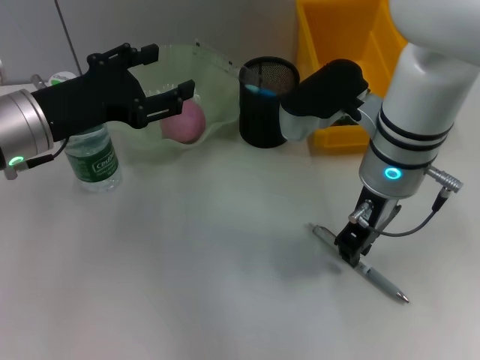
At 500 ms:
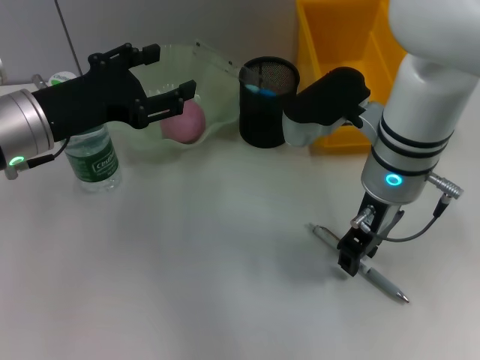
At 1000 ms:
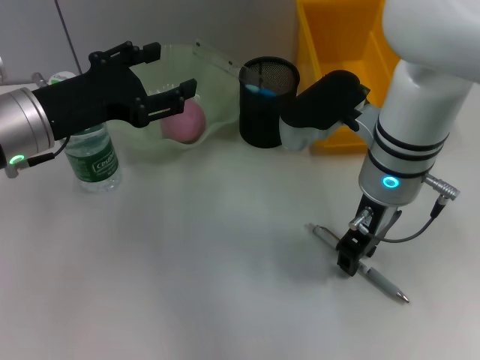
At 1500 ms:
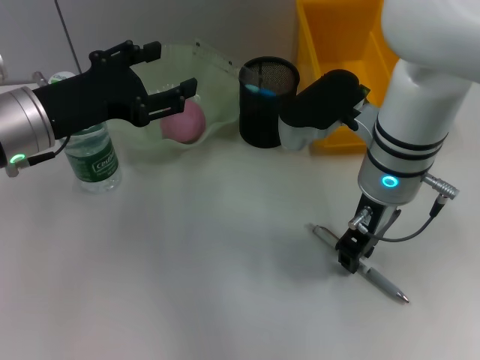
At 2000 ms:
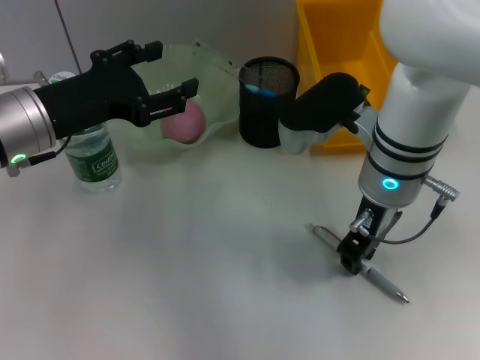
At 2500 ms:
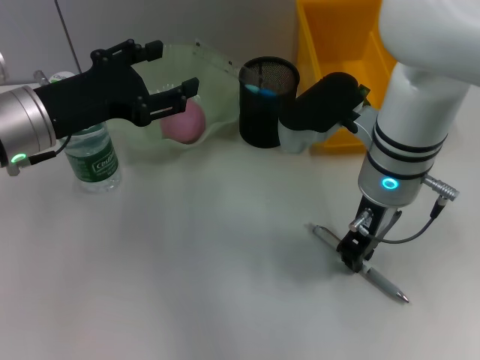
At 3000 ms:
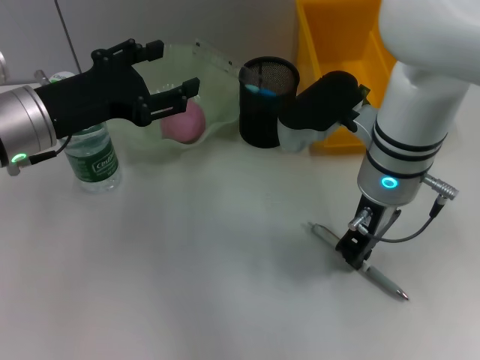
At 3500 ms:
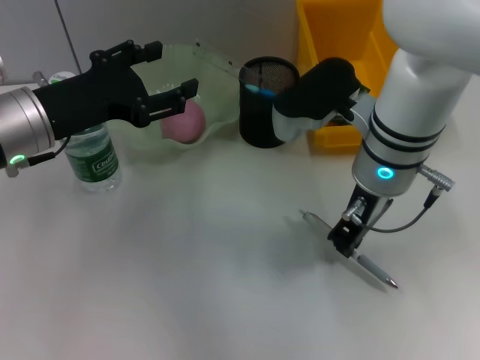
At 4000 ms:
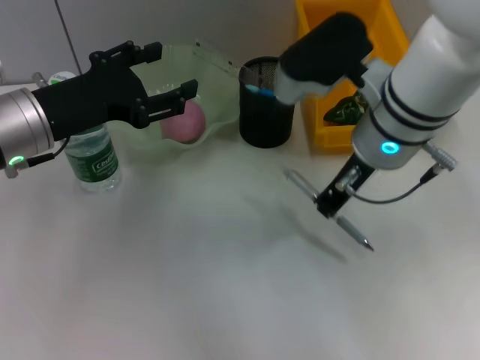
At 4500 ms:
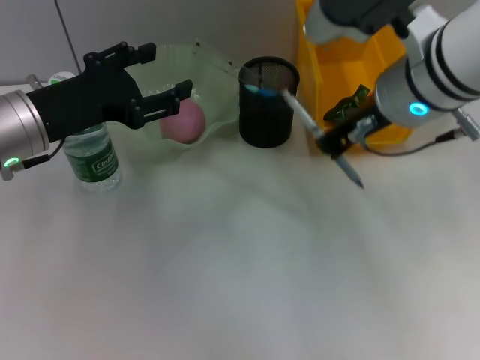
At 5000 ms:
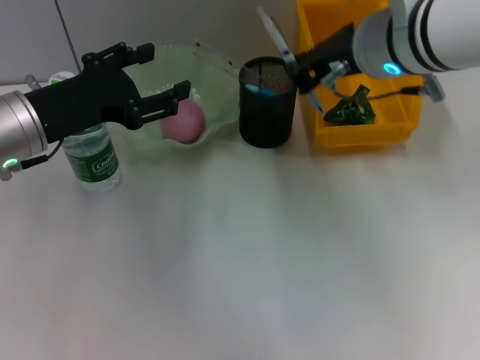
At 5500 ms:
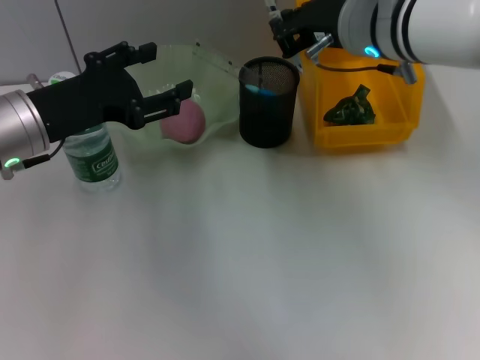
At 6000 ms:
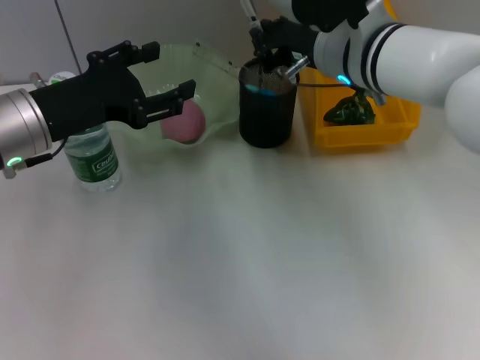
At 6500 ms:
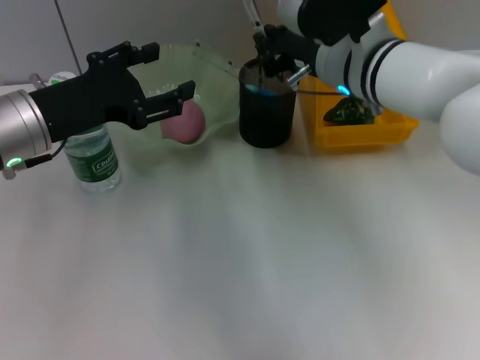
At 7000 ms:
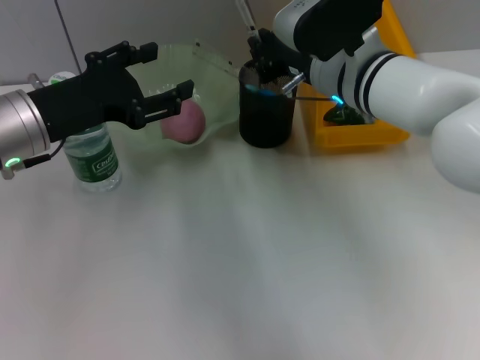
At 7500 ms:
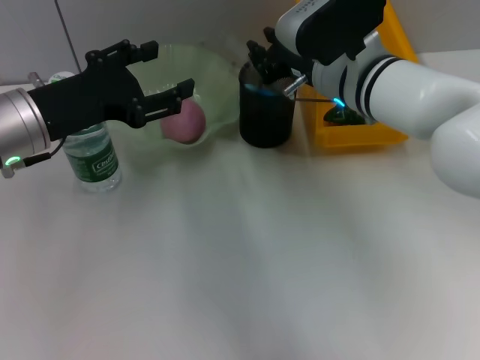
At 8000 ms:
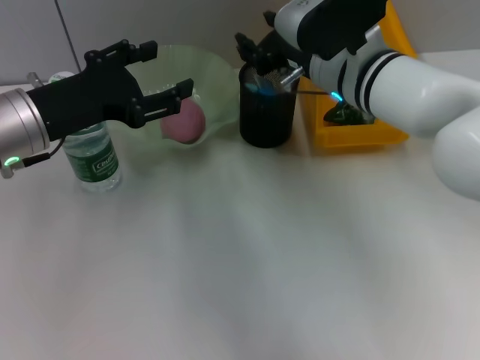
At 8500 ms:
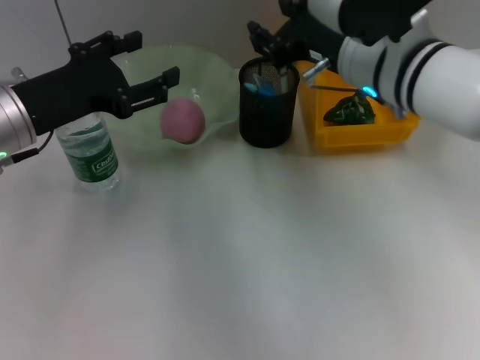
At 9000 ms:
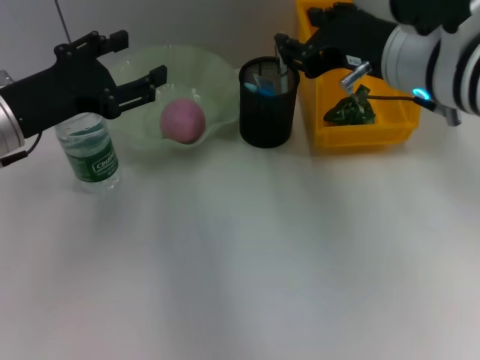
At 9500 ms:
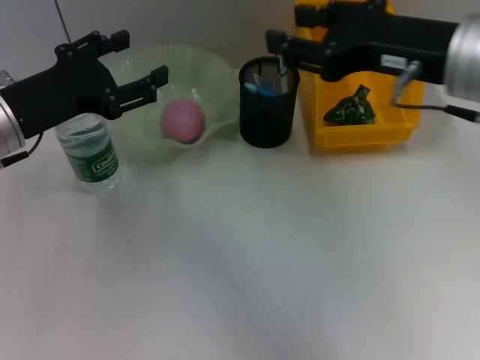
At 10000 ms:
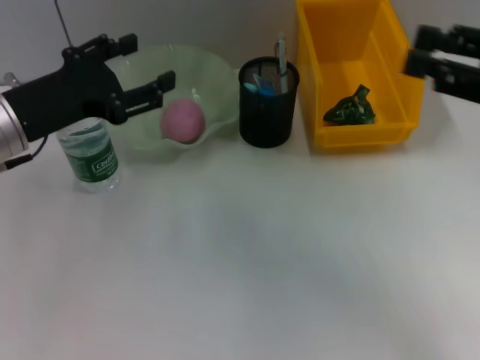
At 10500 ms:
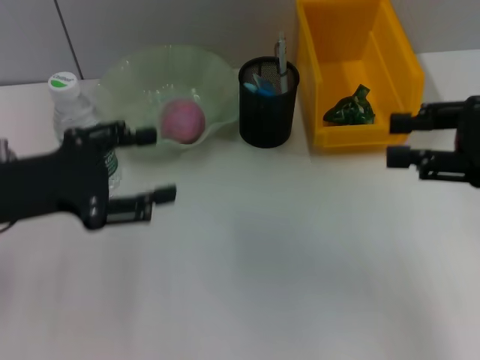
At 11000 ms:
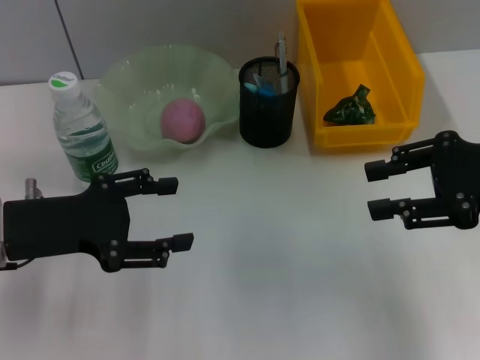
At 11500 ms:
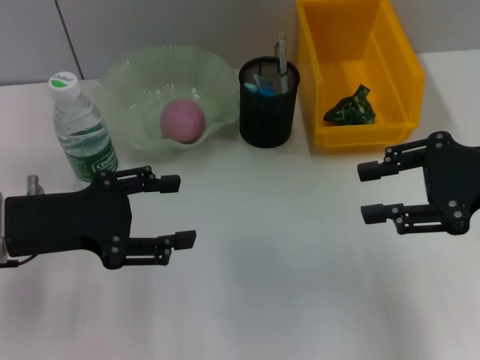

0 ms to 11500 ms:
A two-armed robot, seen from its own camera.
Step, 0 ms to 2500 ms: Grab the gray spring-action pen with the right hand.
Step, 3000 ms to 8000 ms: Place the gray spring-action pen into the pen holder with the right hand.
0 ms to 2000 ms: The two grippers keep their place.
2000 ms to 4000 ms: The grippers move only a little.
6000 ms to 7500 ms: There are only small adjustments of the grippers.
7500 ms to 9500 ms: The right gripper is displaced backward, upward and to the right by some 15 cm, and opens.
9500 ms to 11500 ms: The left gripper shifts some 5 cm backward; the right gripper goes about 10 cm to the right and downward.

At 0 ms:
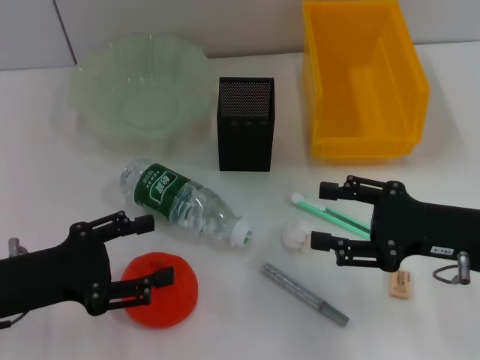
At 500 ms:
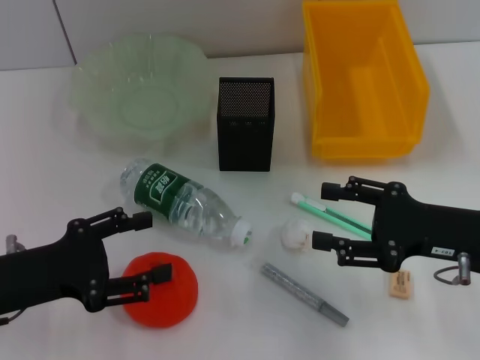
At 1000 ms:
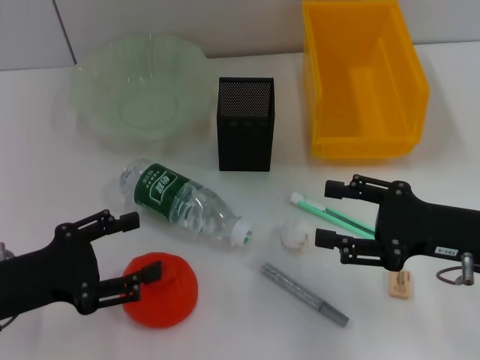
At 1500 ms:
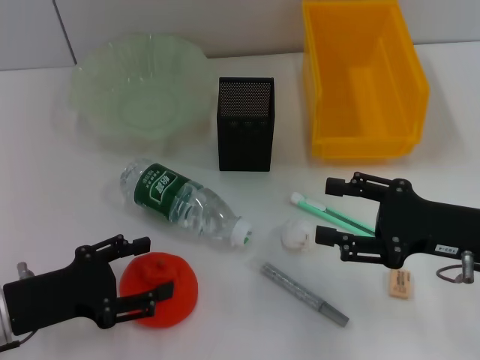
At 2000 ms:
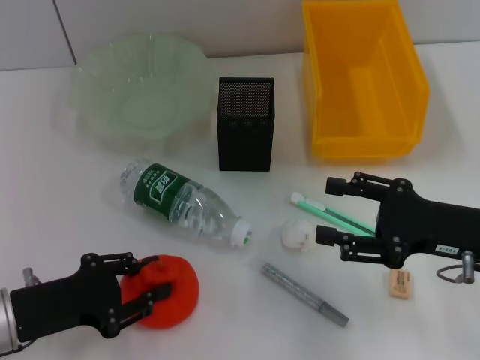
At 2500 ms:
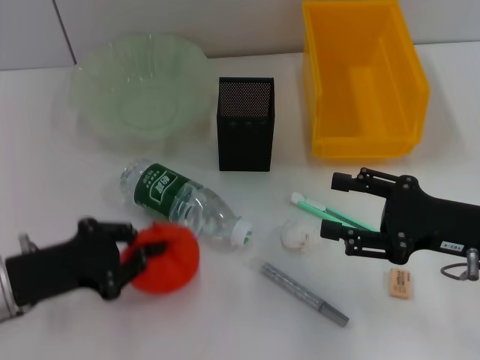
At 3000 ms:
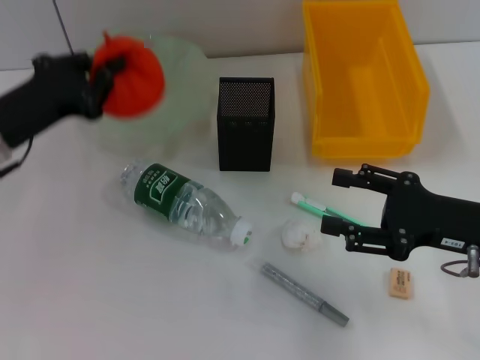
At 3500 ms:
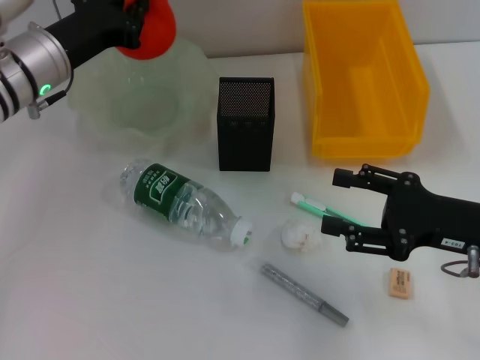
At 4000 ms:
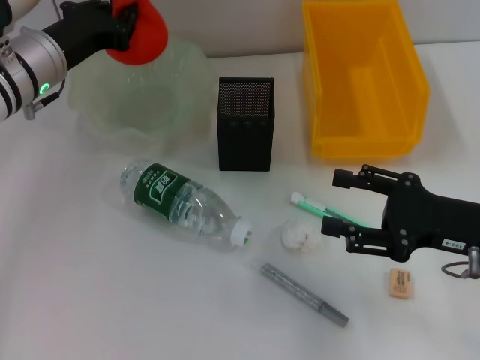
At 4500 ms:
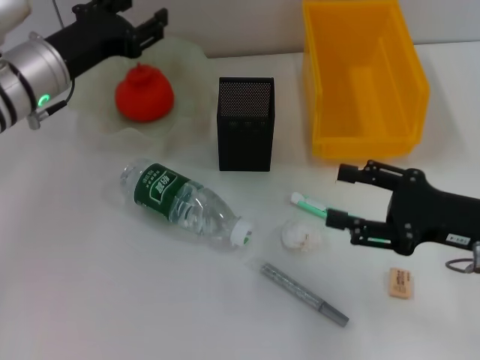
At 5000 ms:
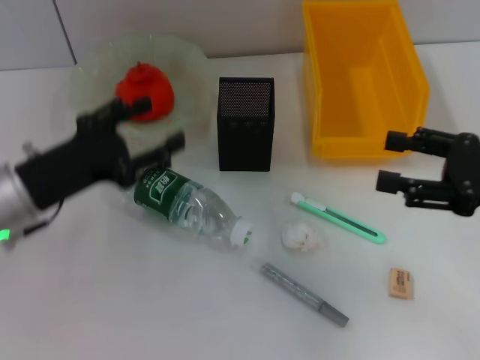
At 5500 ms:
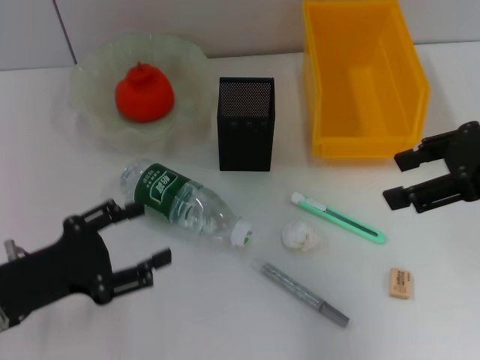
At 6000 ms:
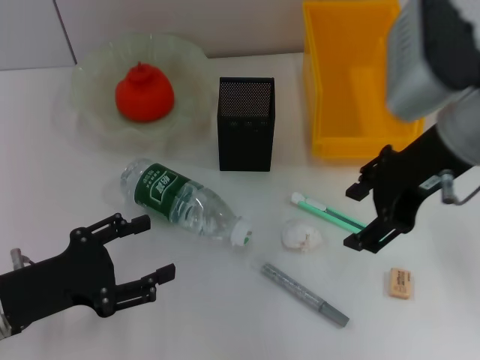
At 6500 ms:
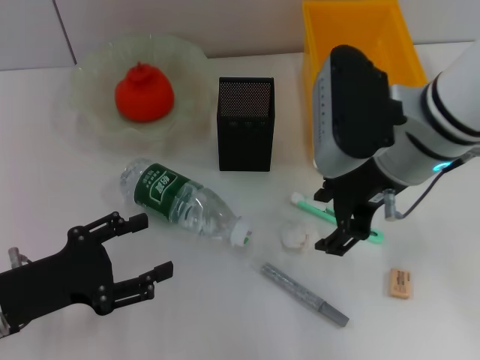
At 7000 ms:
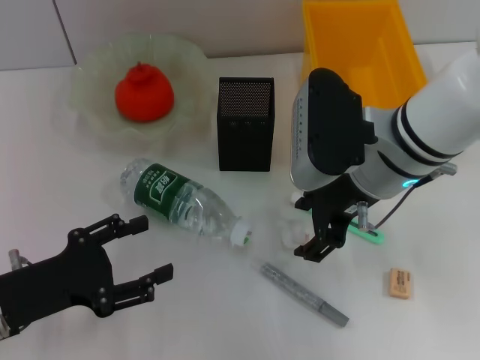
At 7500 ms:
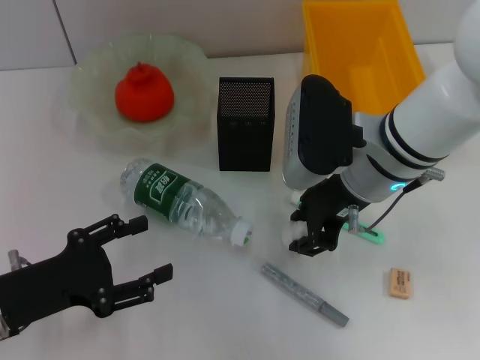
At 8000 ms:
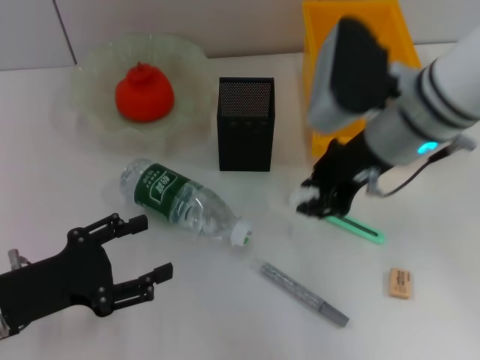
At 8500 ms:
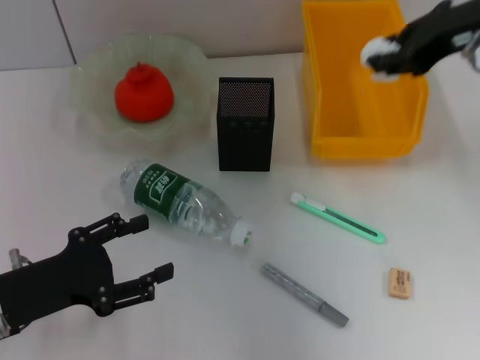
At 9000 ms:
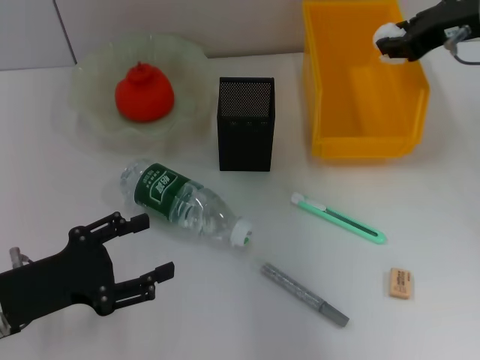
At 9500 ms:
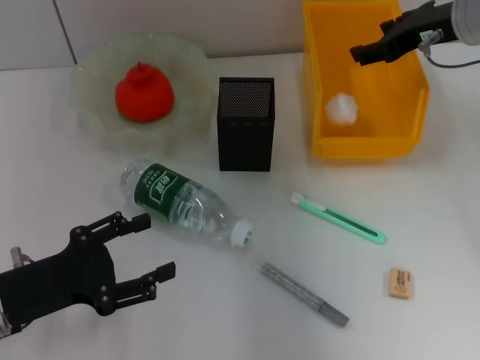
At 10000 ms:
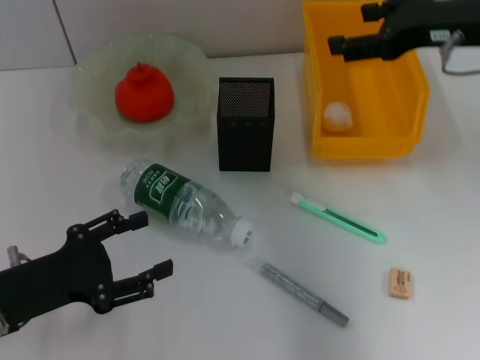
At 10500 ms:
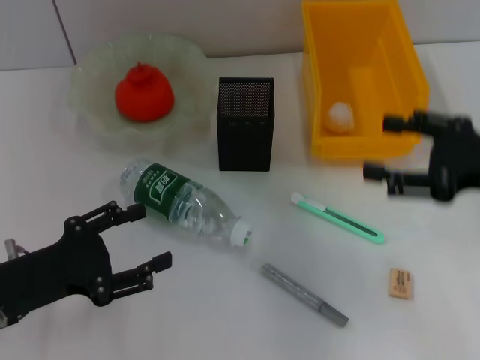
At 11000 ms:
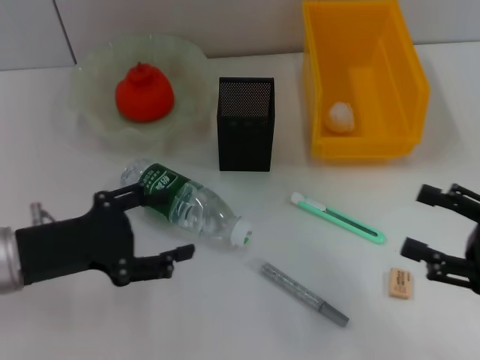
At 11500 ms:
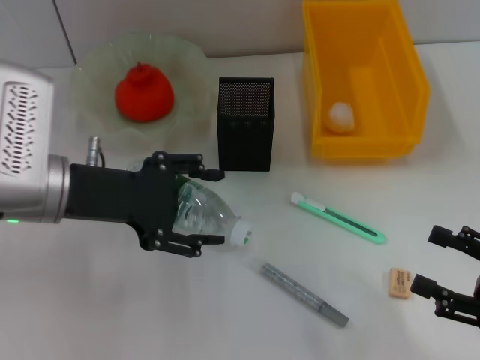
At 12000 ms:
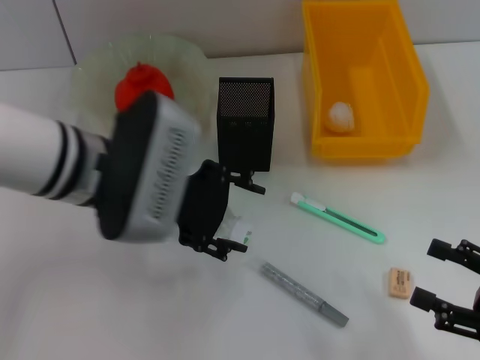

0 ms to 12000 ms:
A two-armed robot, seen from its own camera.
Step, 0 ms to 2000 ms: Grab the orange with the left hand.
Step, 2500 ms to 4500 ms: Place the orange into the fruit bowl with the left hand.
Step, 5000 ms to 7500 ms: Grab the paper ball with the right hand.
Step, 8000 ms to 9000 ms: Place the paper ball into the trash can with the right hand.
0 ms to 2000 ms: The grippers stay close to where they were, moving slightly.
2000 ms to 4000 ms: The left gripper heads forward and upward, covering about 20 cm, and closes its fingers.
4000 ms to 6000 ms: The left gripper is displaced backward and downward by approximately 20 cm, and opens; the right gripper shifts some 20 cm upward, to the left and forward.
6000 ms to 8000 ms: The right gripper closes up.
8000 ms to 10000 ms: The right gripper travels to the right by about 10 cm, and opens its fingers.
10000 ms to 12000 ms: The right gripper is displaced backward and downward by about 30 cm; the left gripper travels to the right, upward and forward by some 20 cm.

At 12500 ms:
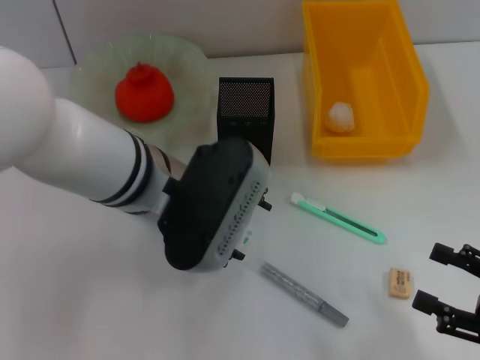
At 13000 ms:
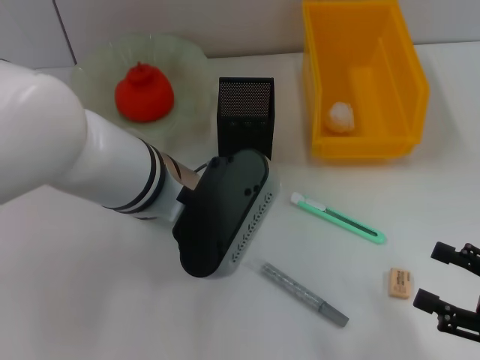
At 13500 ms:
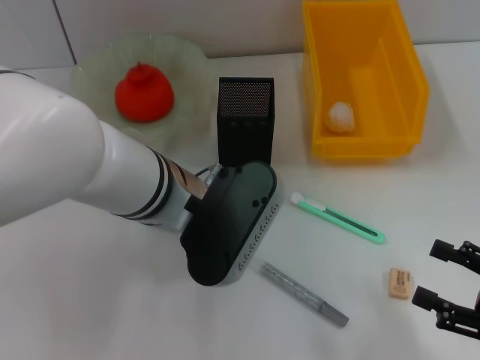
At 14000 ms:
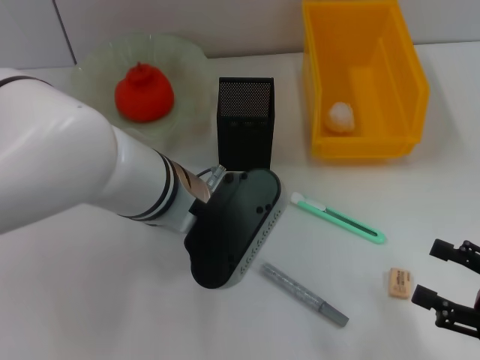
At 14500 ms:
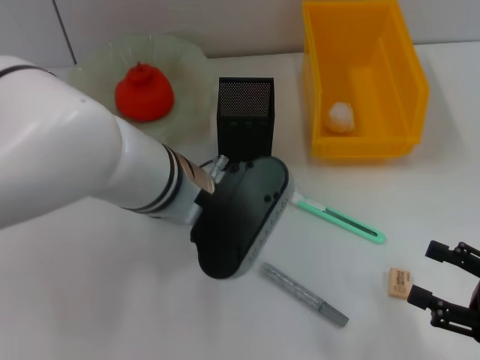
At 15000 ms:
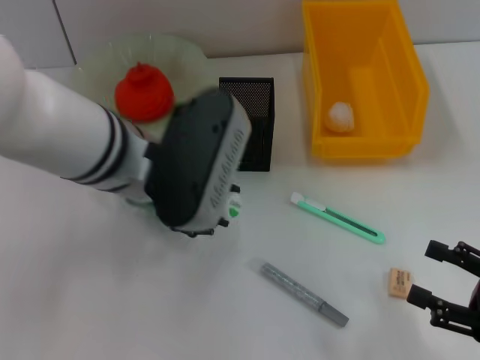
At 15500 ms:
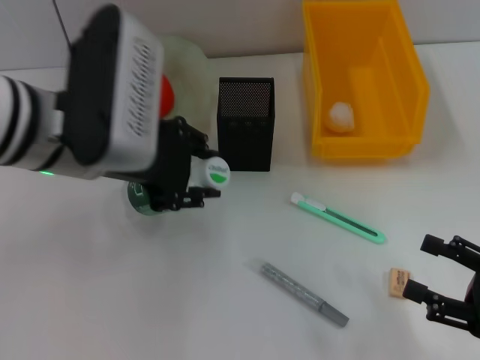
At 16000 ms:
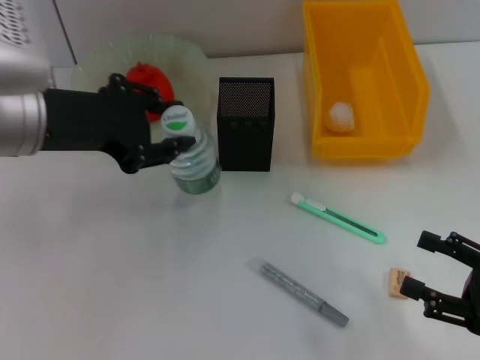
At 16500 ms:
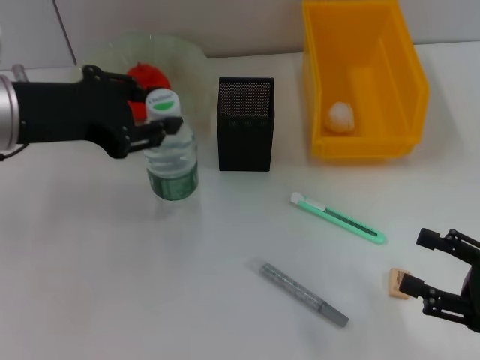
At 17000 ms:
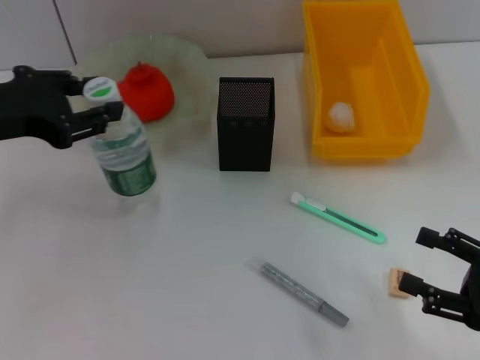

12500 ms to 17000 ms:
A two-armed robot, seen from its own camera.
12500 ms to 14500 ms: The left gripper closes its fingers.
14500 ms to 17000 ms: The left gripper moves to the left, roughly 20 cm.
